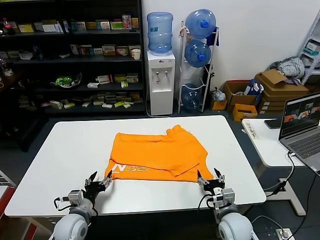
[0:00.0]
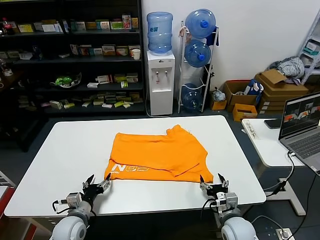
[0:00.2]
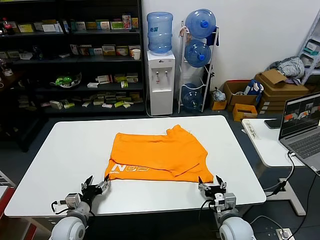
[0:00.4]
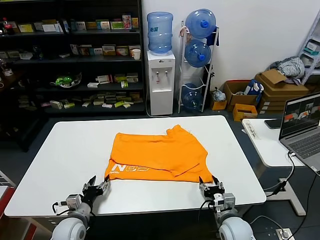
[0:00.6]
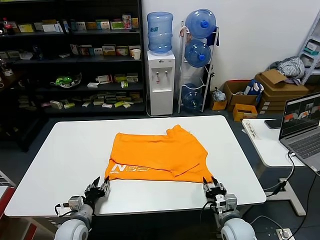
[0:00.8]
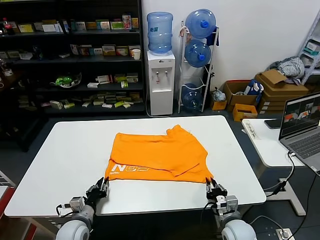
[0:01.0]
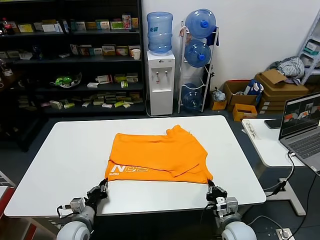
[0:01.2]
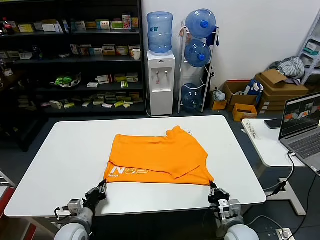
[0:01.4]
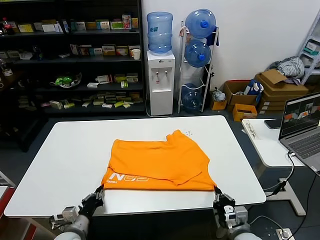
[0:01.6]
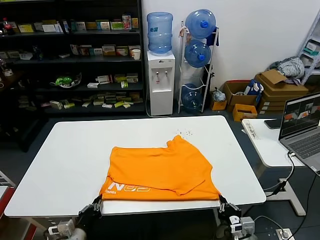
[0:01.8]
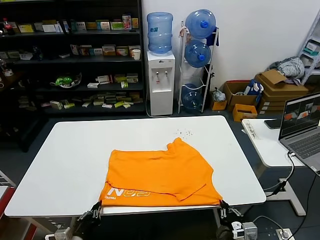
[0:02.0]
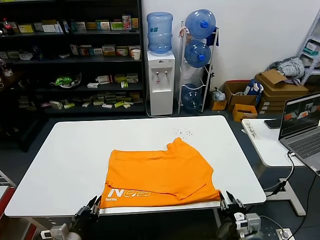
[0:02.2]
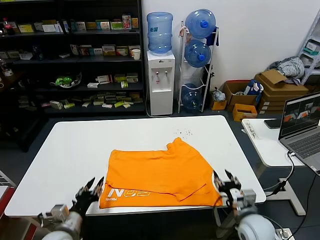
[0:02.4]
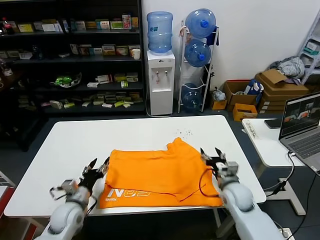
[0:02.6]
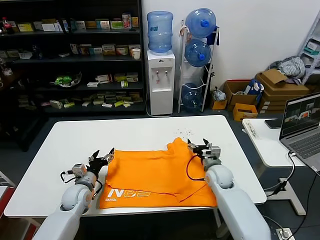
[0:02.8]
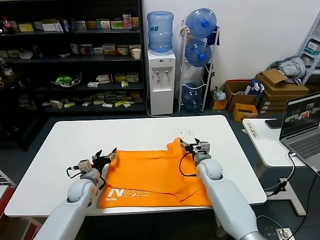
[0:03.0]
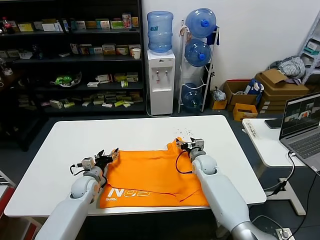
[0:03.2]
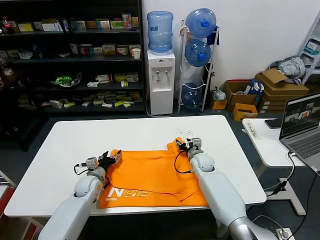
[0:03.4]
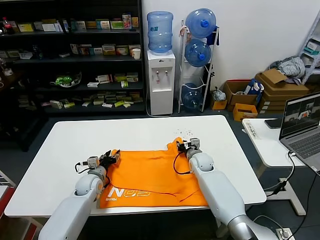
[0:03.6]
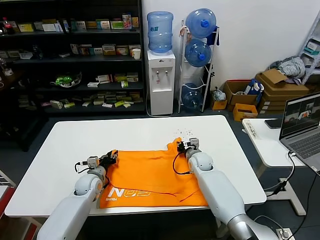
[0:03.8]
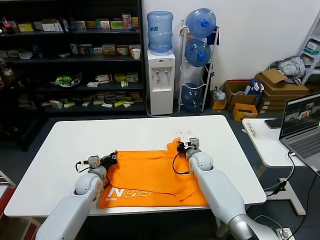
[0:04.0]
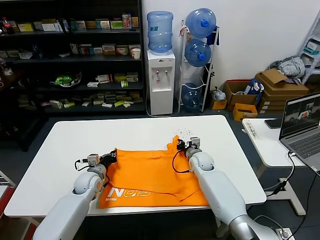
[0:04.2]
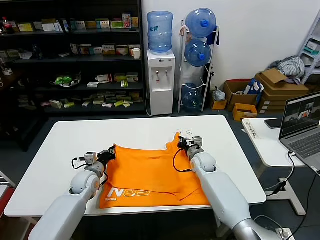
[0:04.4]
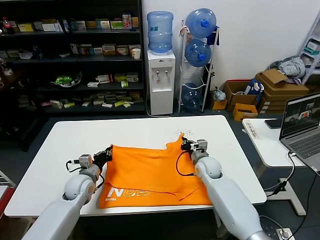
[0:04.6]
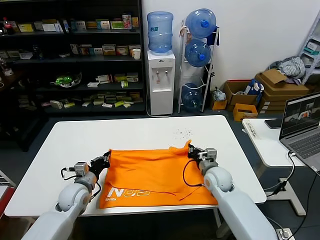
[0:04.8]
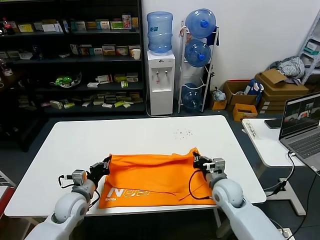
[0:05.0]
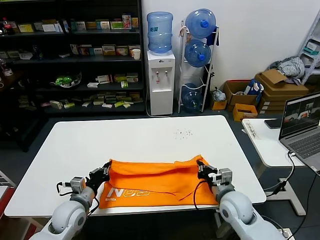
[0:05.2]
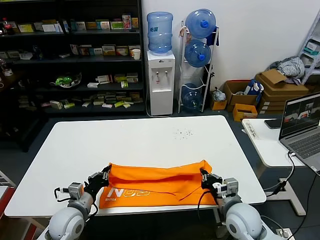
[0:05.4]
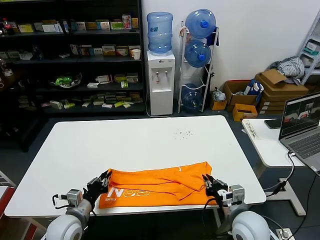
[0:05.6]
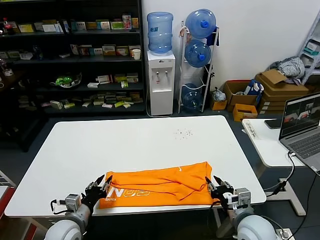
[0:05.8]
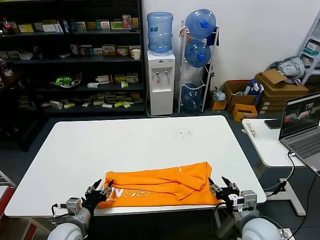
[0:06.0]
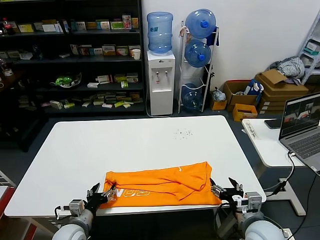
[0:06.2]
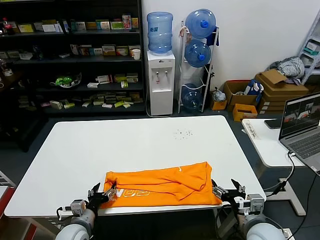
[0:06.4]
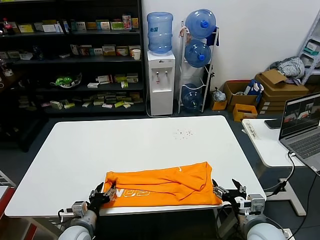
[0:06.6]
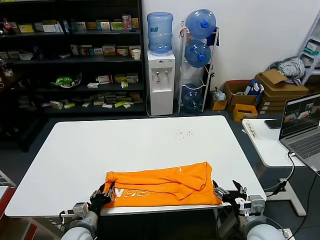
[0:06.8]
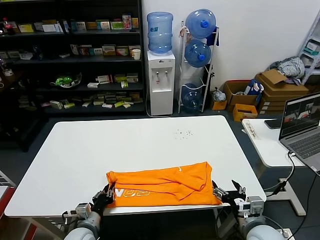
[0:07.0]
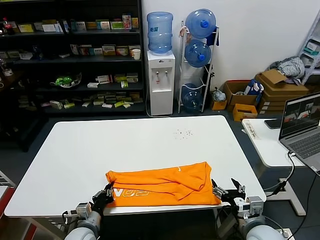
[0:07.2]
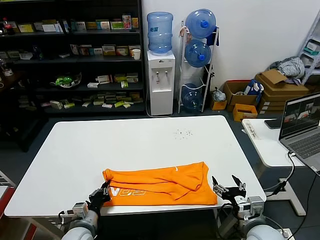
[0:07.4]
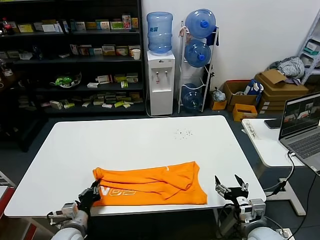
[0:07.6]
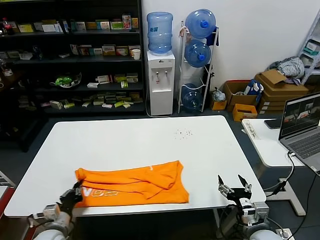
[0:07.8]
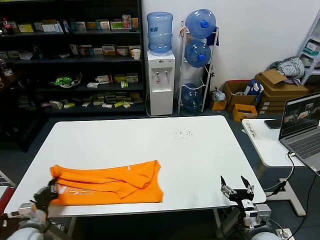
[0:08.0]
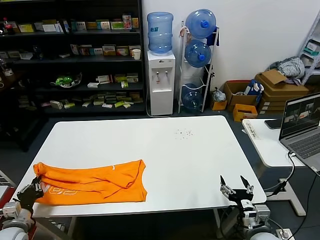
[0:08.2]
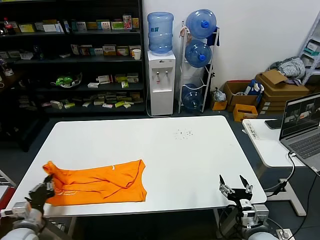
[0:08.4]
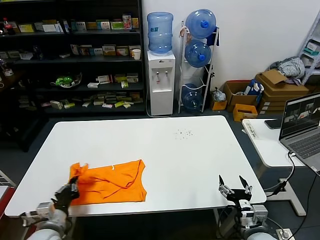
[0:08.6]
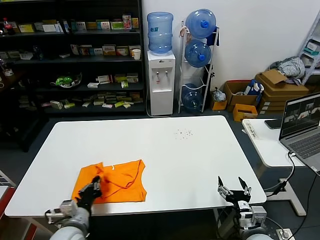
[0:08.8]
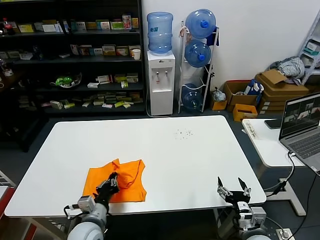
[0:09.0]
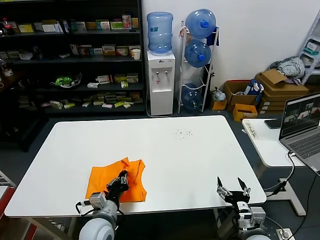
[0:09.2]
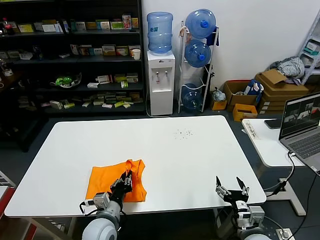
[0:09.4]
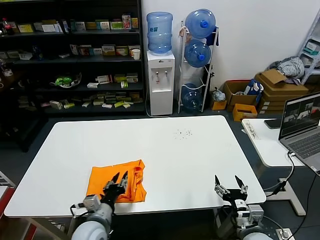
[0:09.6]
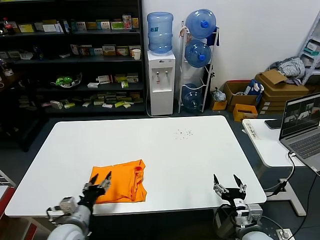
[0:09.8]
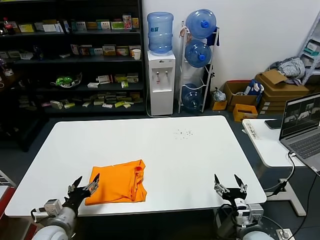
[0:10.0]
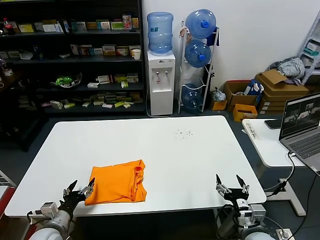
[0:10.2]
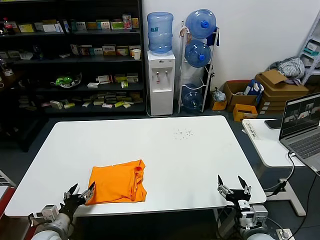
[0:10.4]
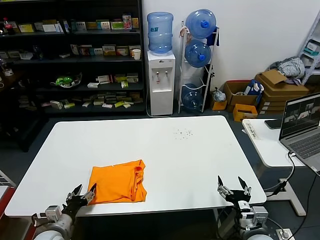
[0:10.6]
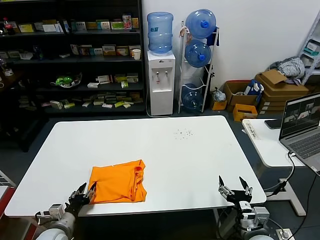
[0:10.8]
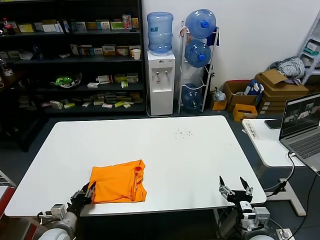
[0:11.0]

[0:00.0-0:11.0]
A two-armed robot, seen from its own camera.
Task of the whole recording: fold and organize the clothes.
Step, 0:00.0 to 0:02.2: Drag the clothes downward with both gripper.
Step, 0:02.4 to 0:04.0: use both grippers simultaneously to clamp the upper edge of the clothing fabric.
Step, 0:04.2 to 0:05.6: use both grippers to drag the upper edge of the fabric backward and fold it over the lower edge.
Step, 0:05.8 to 0:07.0: use the left gripper to clamp the left edge of the fabric.
Step, 0:07.4 to 0:09.4: use the left gripper to drag the left edge of the fabric to the left and folds it over the right edge.
0:00.0 to 0:01.6: The left gripper shifts by roughly 5 cm, and closes its fingers. The right gripper goes some 5 cm backward, and closes its fingers.
0:01.6 to 0:03.2: The left gripper travels forward by approximately 20 cm, and opens up, while the right gripper travels forward by about 30 cm, and opens up.
0:03.2 to 0:04.8: The left gripper shifts some 10 cm upward and backward, and closes up, while the right gripper heads backward, covering roughly 10 cm, and closes.
0:04.8 to 0:06.2: The left gripper goes approximately 10 cm backward, and opens, while the right gripper moves backward, approximately 20 cm, and opens up.
0:06.2 to 0:07.8: The left gripper closes up.
0:07.8 to 0:09.4: The left gripper heads to the right, covering roughly 15 cm.
0:09.4 to 0:11.0: The left gripper heads to the left, covering roughly 15 cm, and opens, then closes again.

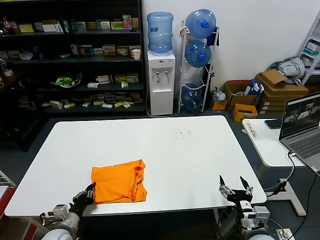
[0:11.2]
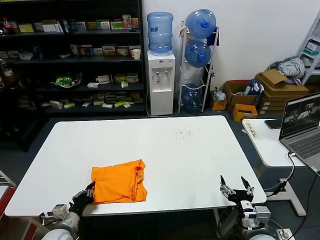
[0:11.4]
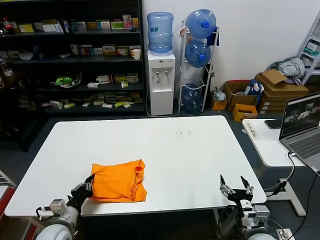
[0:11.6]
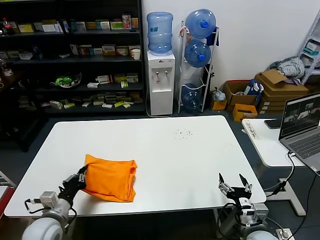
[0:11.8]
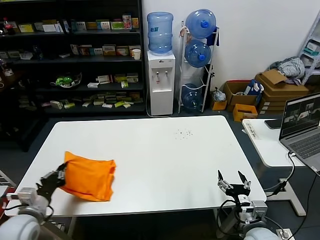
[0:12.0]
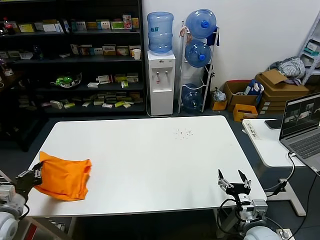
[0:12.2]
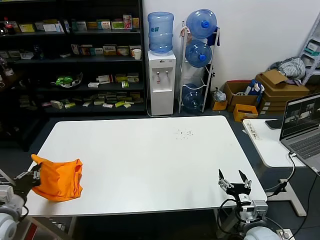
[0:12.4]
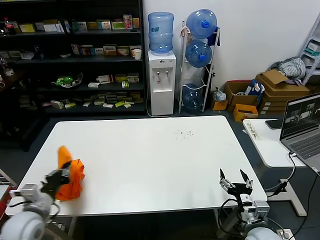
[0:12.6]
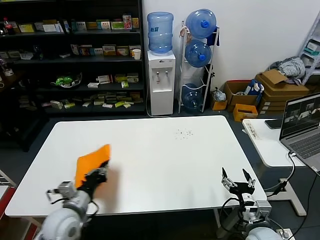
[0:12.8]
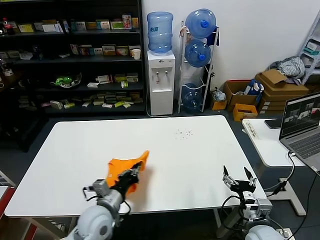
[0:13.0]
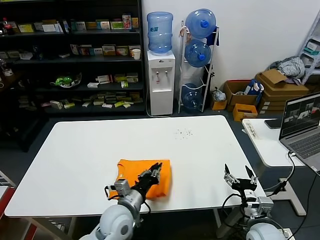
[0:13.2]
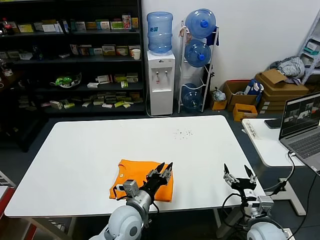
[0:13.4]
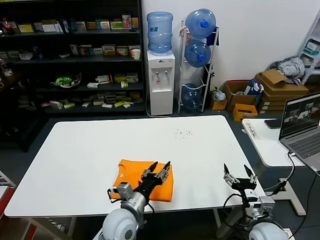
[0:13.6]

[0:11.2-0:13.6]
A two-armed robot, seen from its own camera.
Task of the whole recording: fold and organize the clothes.
Step, 0:11.2 to 0:13.2: Flip the folded clothes over with left gripper.
0:11.2 to 0:12.4: The left gripper goes some 20 cm to the left and upward.
0:12.4 to 0:13.6: The left gripper travels to the right by about 35 cm, and opens its fingers.

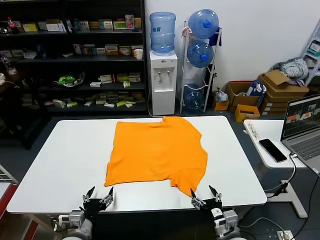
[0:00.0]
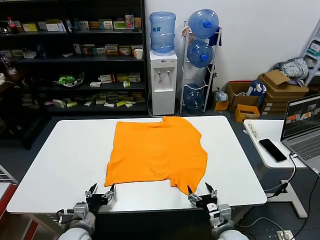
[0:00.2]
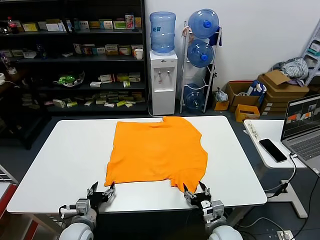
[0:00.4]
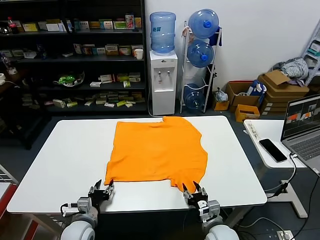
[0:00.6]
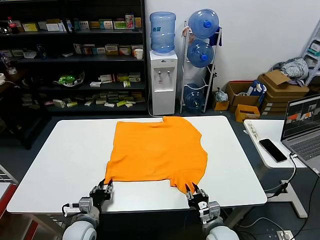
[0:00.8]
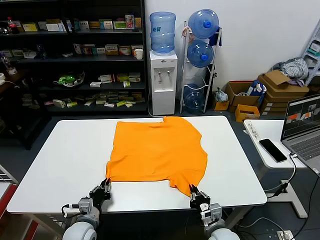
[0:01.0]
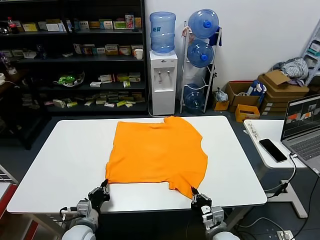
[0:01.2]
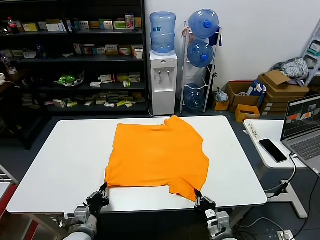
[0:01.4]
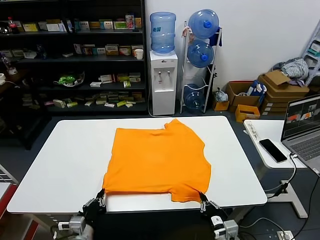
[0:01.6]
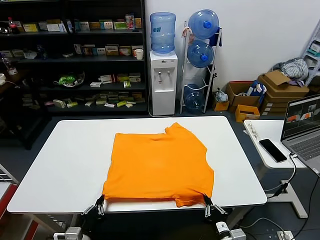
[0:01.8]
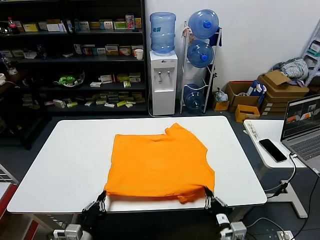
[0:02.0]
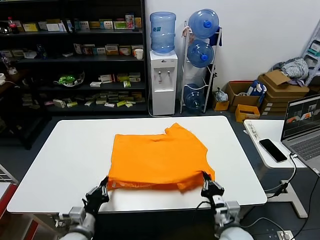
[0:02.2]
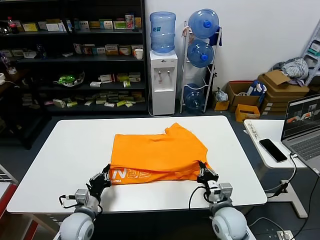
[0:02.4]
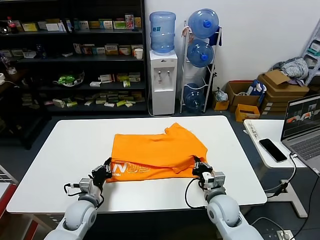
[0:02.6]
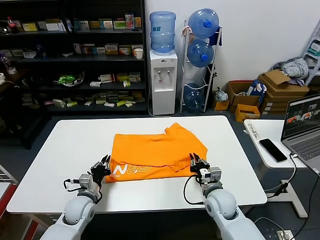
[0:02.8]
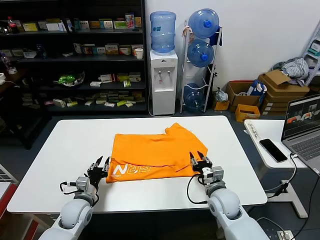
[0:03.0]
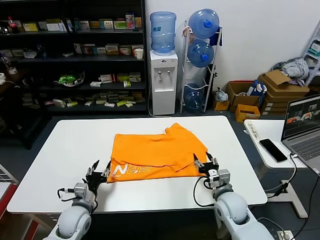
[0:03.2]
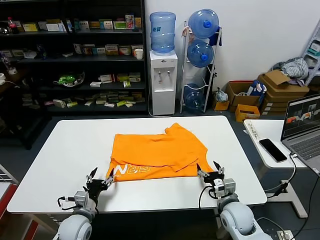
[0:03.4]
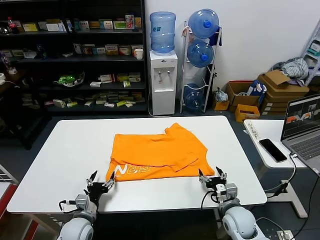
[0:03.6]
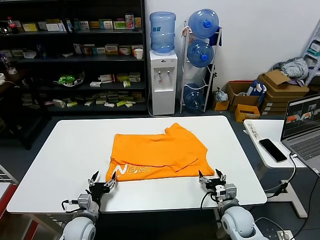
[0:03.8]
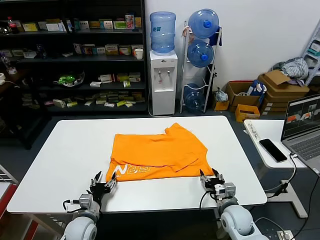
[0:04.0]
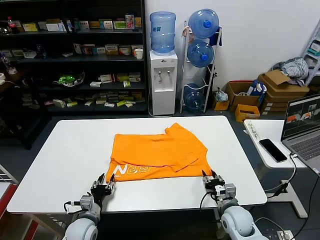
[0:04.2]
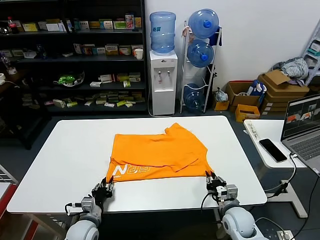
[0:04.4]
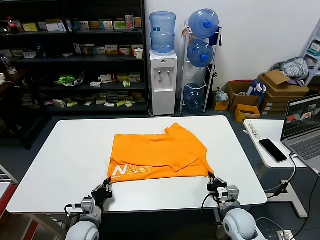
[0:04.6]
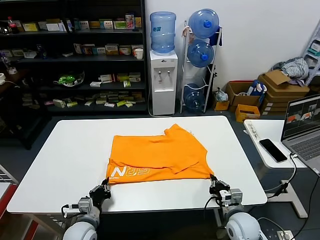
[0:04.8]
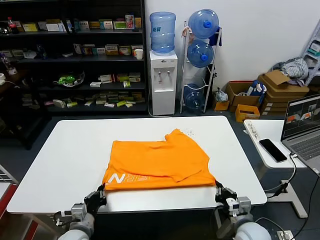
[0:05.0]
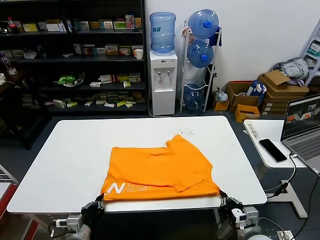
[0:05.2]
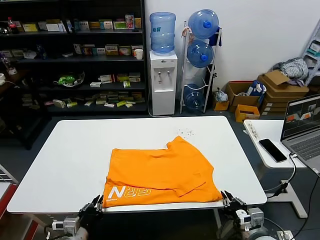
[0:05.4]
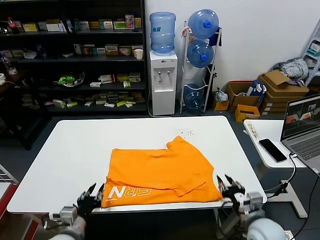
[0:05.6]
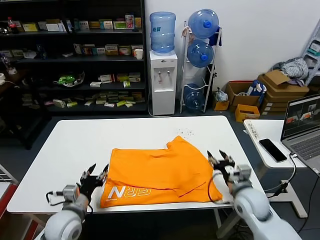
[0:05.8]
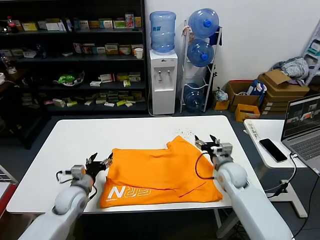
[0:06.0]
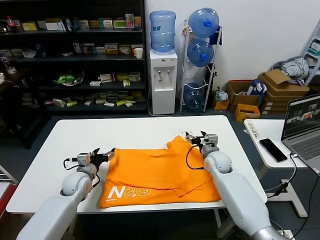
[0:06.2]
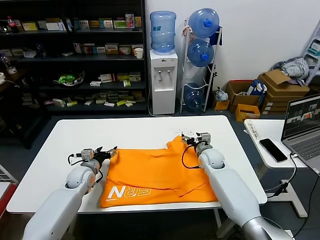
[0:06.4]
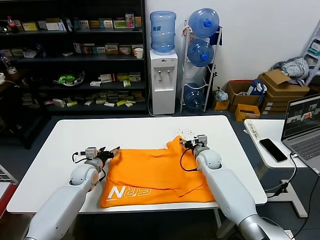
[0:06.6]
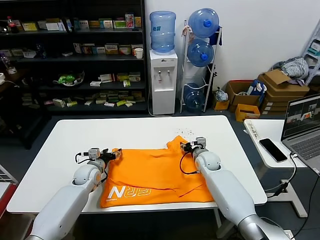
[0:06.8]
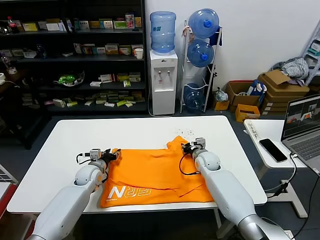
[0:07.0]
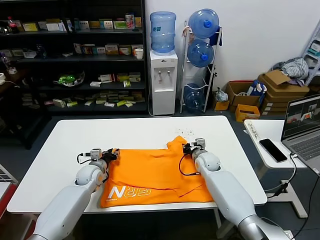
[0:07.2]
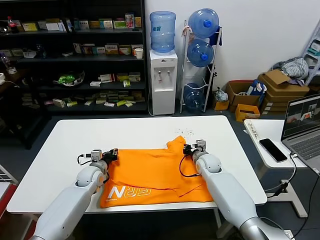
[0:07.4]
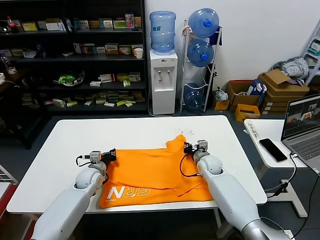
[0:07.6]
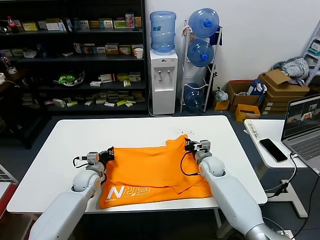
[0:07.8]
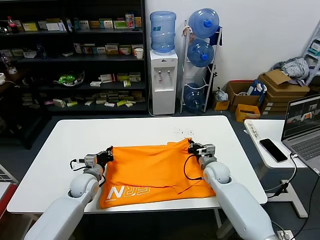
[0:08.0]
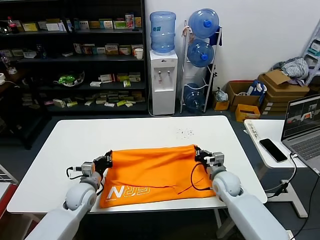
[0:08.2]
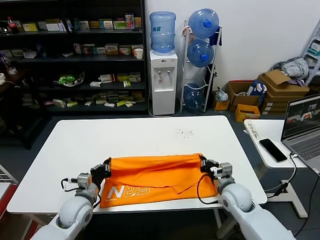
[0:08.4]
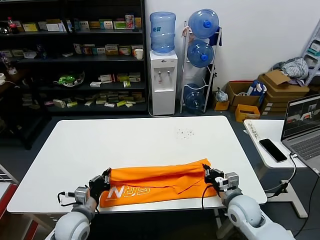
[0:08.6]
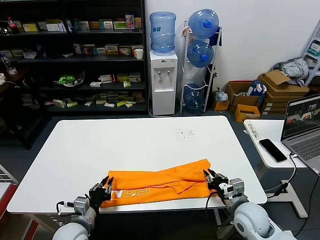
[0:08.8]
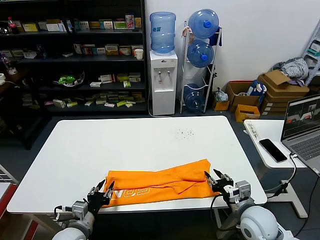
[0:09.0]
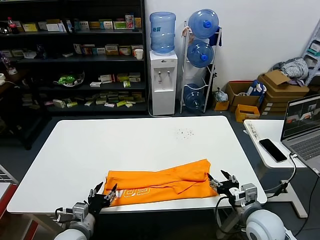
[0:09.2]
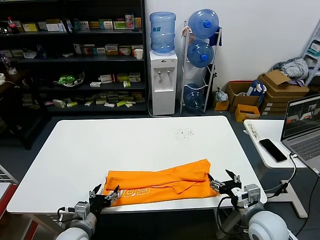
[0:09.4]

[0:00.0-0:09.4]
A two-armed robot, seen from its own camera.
Task of the whole recording: fold and organize the clothes.
Step, 0:00.0 to 0:01.0: use both grippers simultaneously to clamp the lower edge of the clothing fabric.
Step, 0:01.2 to 0:02.8: use both grippers to drag the lower edge of the fabric forward and fold it over the upper edge.
Step, 0:03.0 to 0:05.4: Drag the clothes downward with both gripper.
Step, 0:05.6 to 0:07.4: use both grippers simultaneously to clamp the upper edge of the clothing fabric.
Step, 0:07.6 to 0:08.8: use both grippers to drag the upper edge of the fabric backward and fold it over the lower edge.
0:01.6 to 0:03.2: Both grippers move forward, roughly 15 cm. The left gripper opens. The right gripper opens its fingers.
0:03.2 to 0:04.8: The right gripper goes roughly 5 cm backward, and closes its fingers. Meanwhile the left gripper shifts by roughly 5 cm, and closes up.
0:04.8 to 0:06.2: Both grippers travel together forward, about 20 cm. The left gripper opens up. The right gripper opens.
0:06.2 to 0:07.8: The right gripper closes its fingers, while the left gripper closes up.
0:07.8 to 0:09.4: Both grippers move backward, roughly 25 cm. The right gripper opens up. The left gripper opens its fingers.
